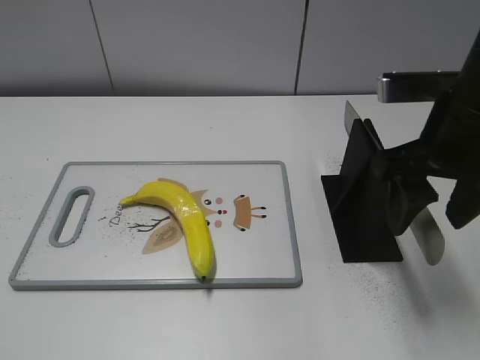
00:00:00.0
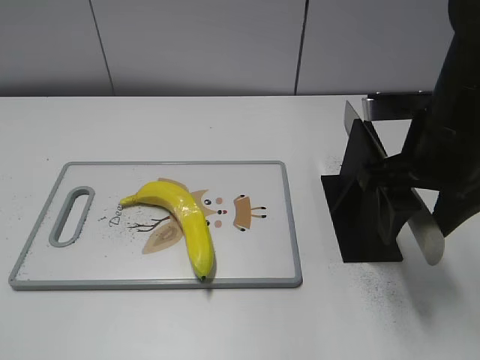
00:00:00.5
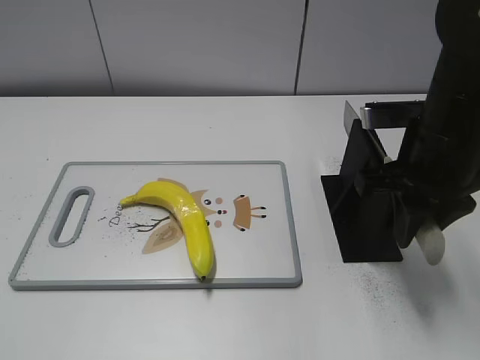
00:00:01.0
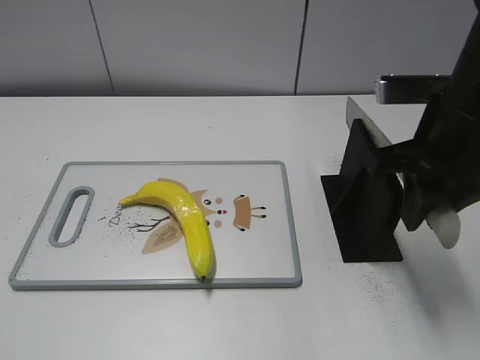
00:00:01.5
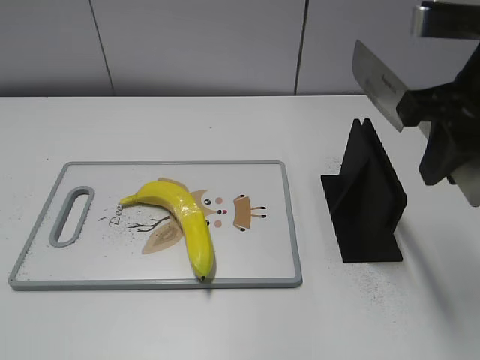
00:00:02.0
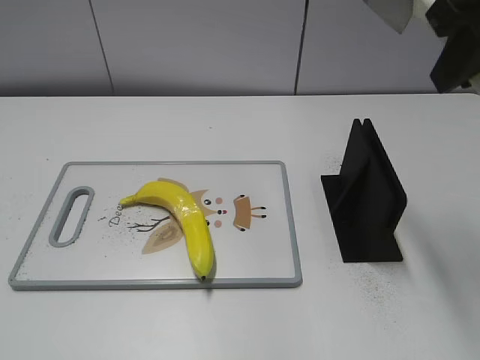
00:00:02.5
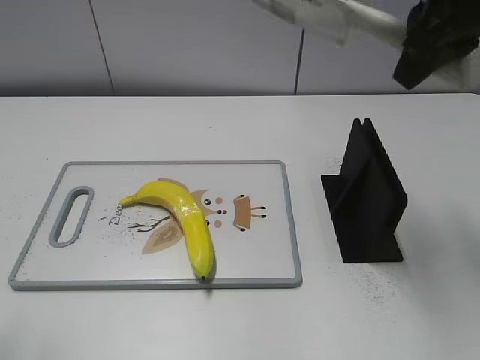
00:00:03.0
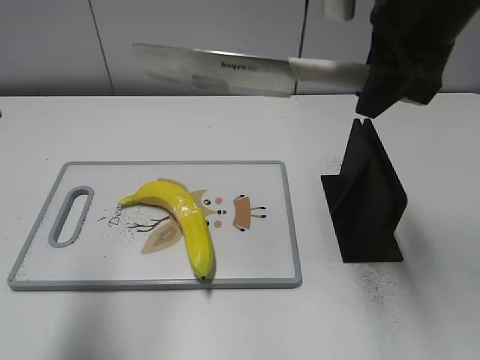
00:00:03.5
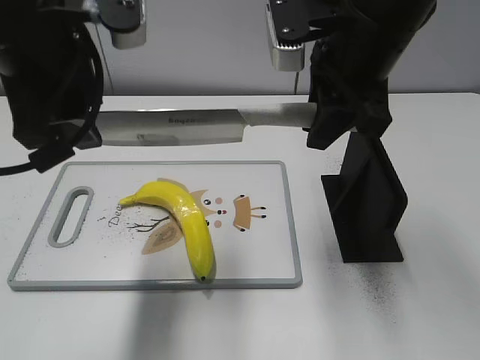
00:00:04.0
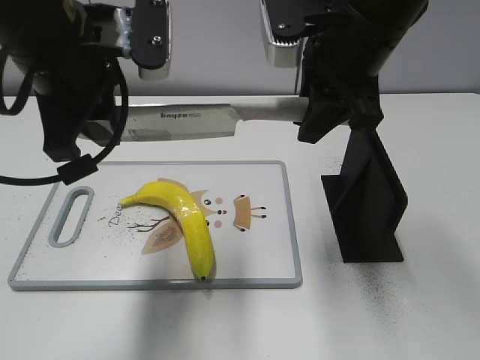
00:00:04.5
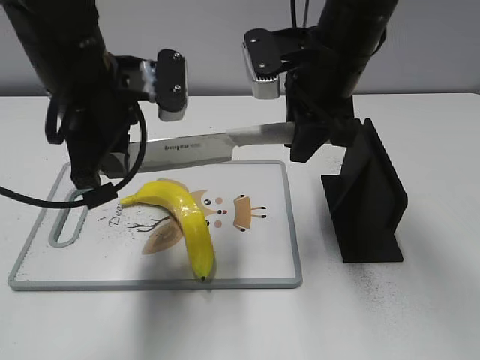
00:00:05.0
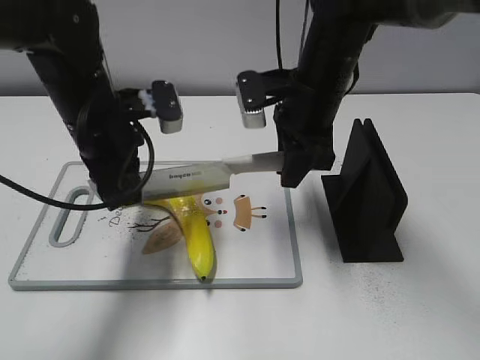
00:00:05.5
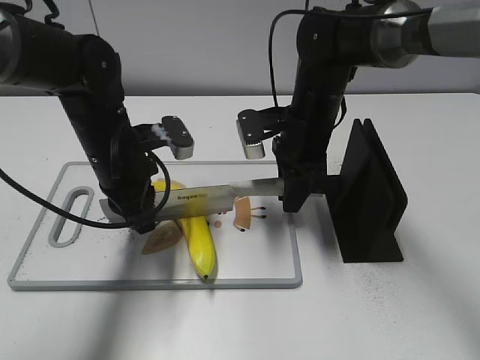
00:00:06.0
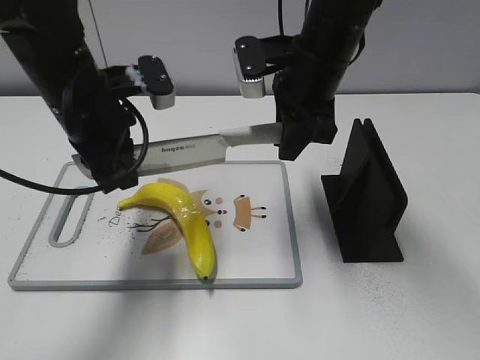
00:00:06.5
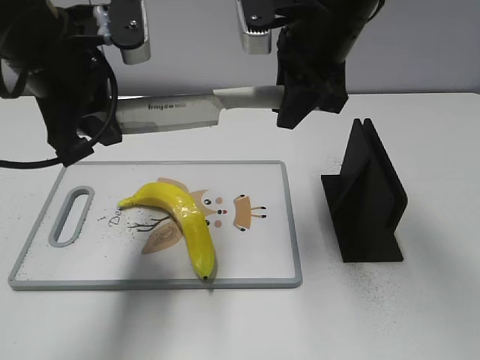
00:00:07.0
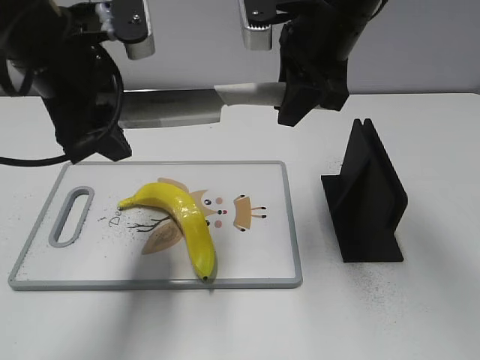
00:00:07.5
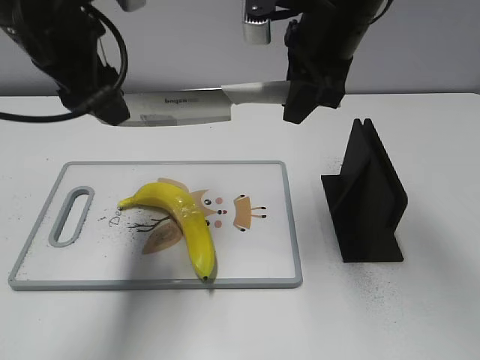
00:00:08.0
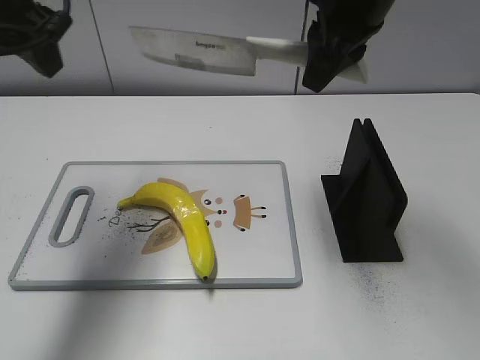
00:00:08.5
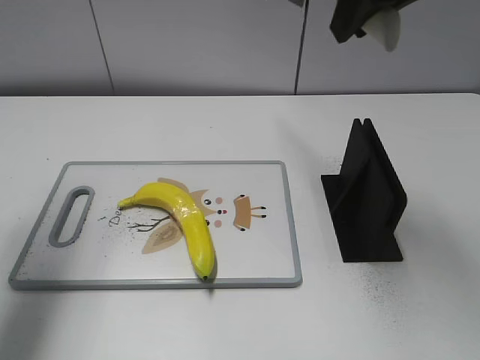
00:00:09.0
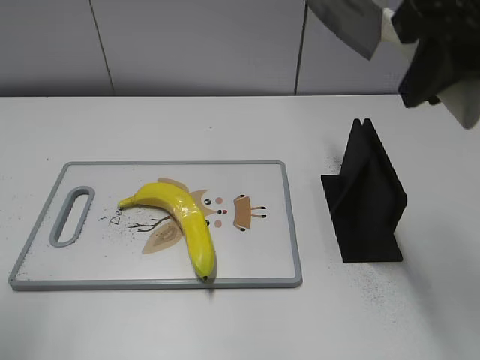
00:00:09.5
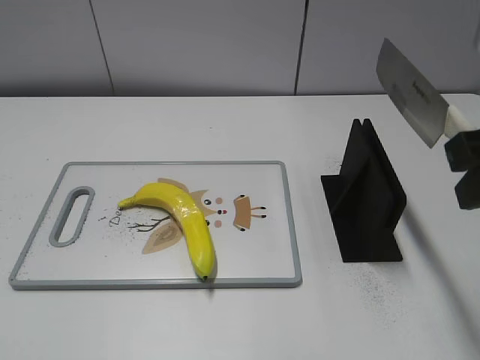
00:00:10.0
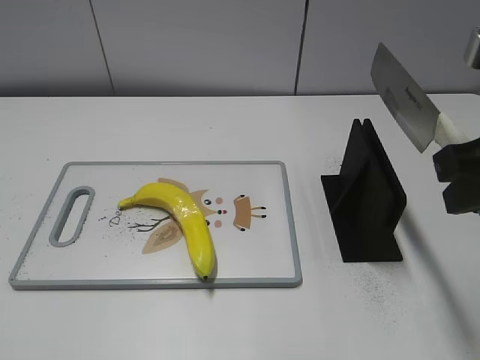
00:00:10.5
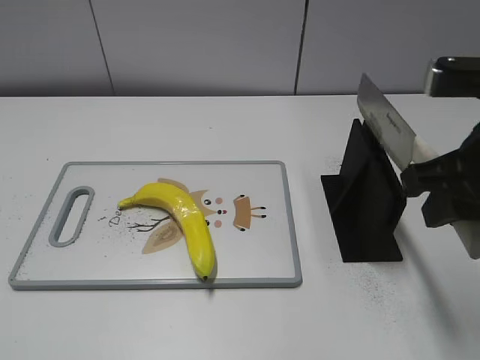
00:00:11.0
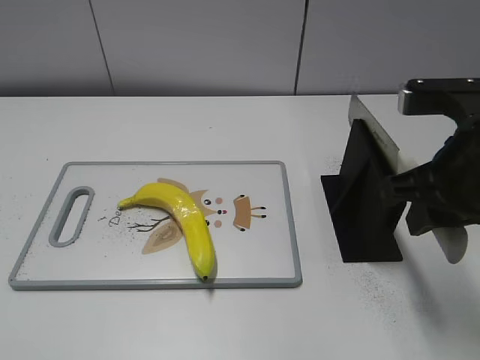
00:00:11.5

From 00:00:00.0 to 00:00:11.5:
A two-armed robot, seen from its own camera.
Task of the whole recording: cut plastic banana.
Step, from 00:00:02.0 to 00:00:05.5: Lift the knife with your right hand.
Step, from 00:00:06.0 to 00:00:08.0: Cut the banana with your right hand.
Step, from 00:00:08.5 to 00:00:09.5: Lift the knife with your right hand.
From 00:00:00.0 to 00:00:02.0: The right gripper goes approximately 5 cm upward, and closes.
From 00:00:02.0 to 00:00:04.0: The right gripper goes roughly 10 cm to the left and forward; the left gripper heads forward and to the right, covering some 30 cm.
From 00:00:04.0 to 00:00:06.0: Both grippers move downward and forward, roughly 20 cm. The left gripper closes its fingers.
From 00:00:06.0 to 00:00:07.5: The grippers both shift upward by some 15 cm. The left gripper opens its fingers.
From 00:00:07.5 to 00:00:09.5: The right gripper shifts about 15 cm backward, to the right and upward. Meanwhile the left gripper heads to the left and backward, covering approximately 20 cm.
From 00:00:09.5 to 00:00:11.5: The left gripper travels backward and downward by roughly 15 cm; the right gripper heads downward, covering about 15 cm.

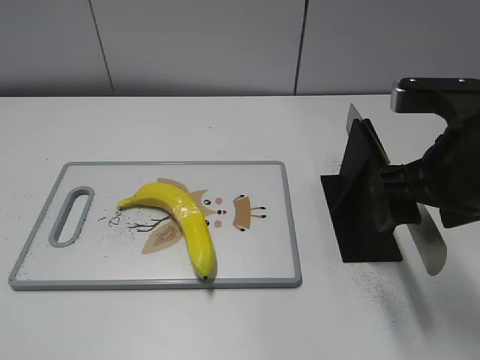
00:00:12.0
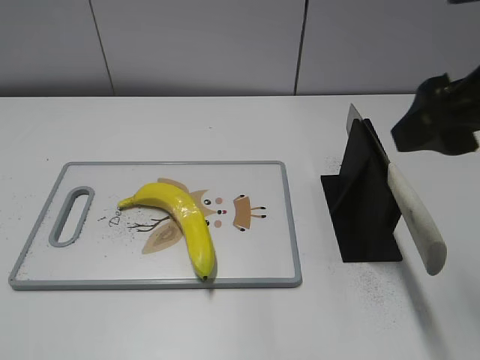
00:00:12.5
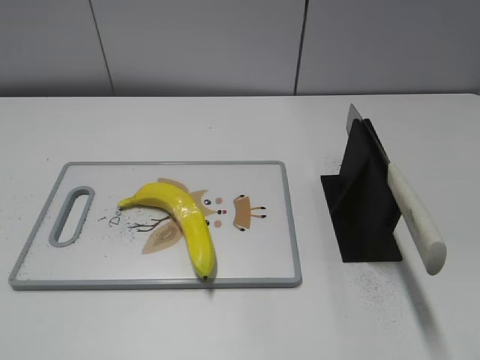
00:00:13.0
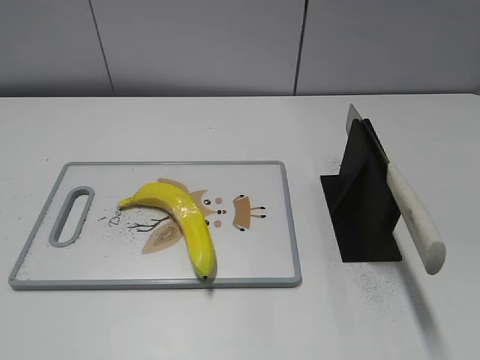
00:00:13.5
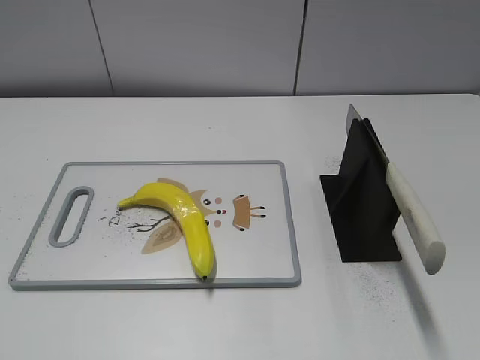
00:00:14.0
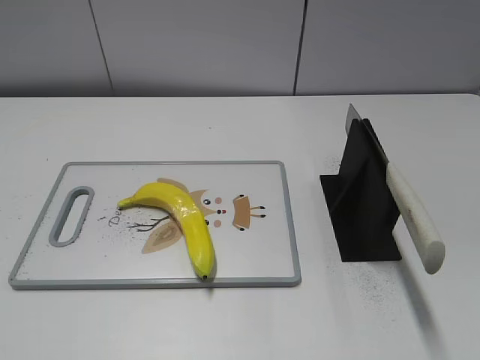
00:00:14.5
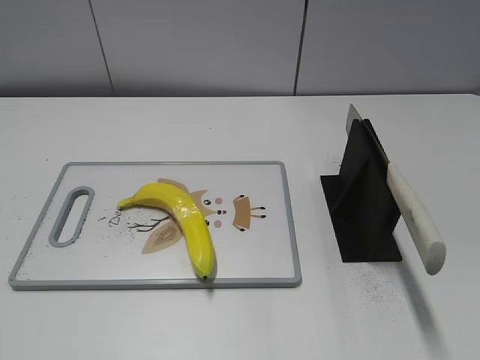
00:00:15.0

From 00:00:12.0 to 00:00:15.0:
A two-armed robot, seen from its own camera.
Task of the whole recording: cut plastic banana.
Step, from 00:00:12.0 to 00:00:15.0: Place the knife on the storage rack with your right hand.
From 00:00:12.0 to 00:00:13.5: The right gripper moves backward and to the right, approximately 20 cm.
